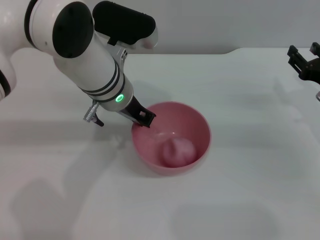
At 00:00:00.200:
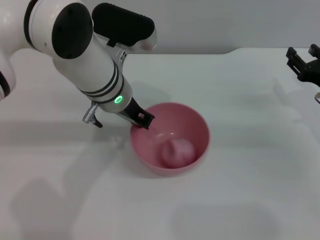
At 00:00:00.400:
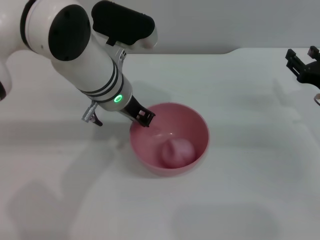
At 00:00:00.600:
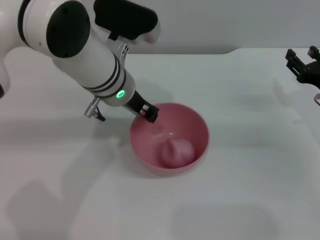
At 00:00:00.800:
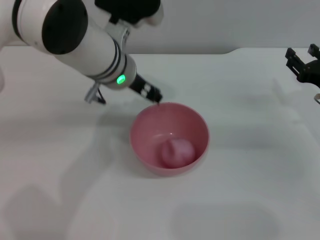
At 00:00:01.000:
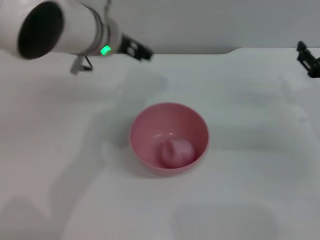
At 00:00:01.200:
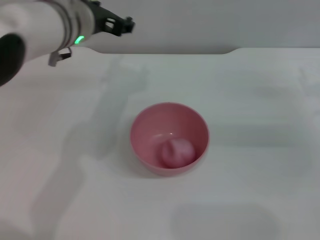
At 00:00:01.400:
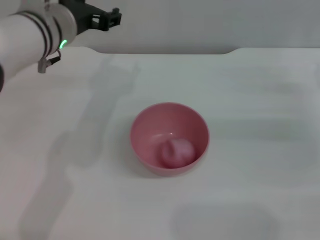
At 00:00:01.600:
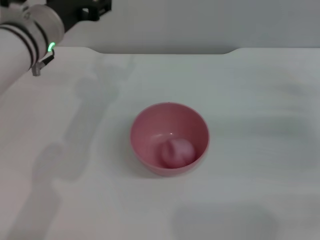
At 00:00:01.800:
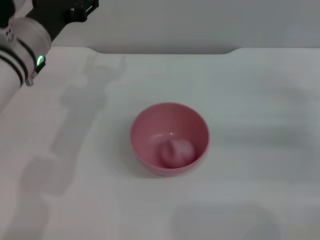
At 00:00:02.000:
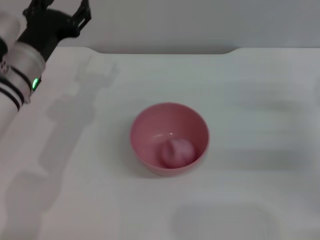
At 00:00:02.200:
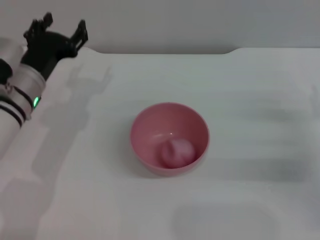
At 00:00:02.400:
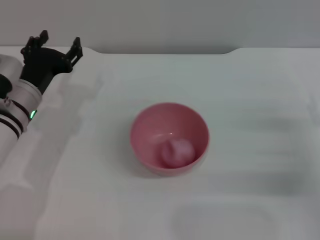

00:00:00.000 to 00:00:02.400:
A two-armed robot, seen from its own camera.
Task of the whole recording: put the peach into the pink bowl and pour it out repeatedly.
00:00:00.000 to 00:00:01.200: The left gripper is displaced upward and to the left by roughly 10 cm, and opens.
00:00:01.200 to 00:00:02.400: The left gripper moves downward and to the left, about 15 cm. Meanwhile the right gripper travels backward by roughly 10 cm.
